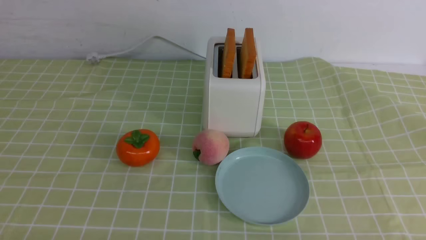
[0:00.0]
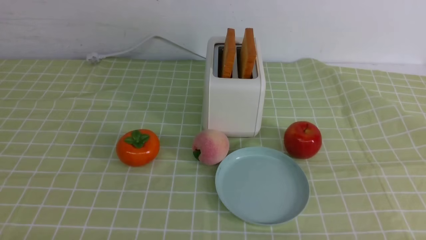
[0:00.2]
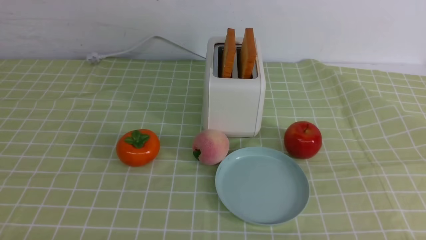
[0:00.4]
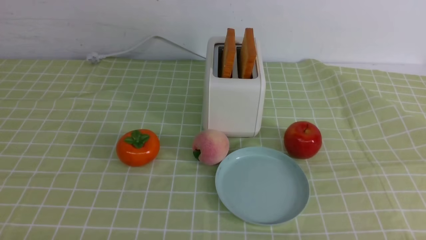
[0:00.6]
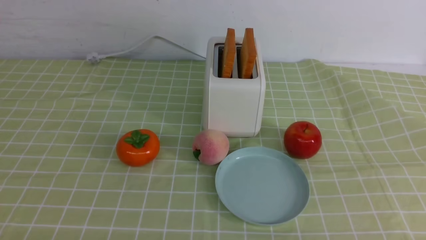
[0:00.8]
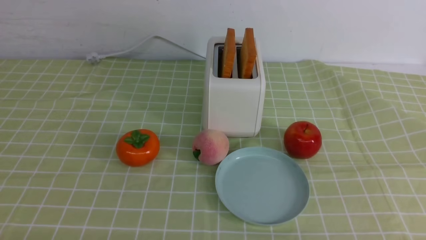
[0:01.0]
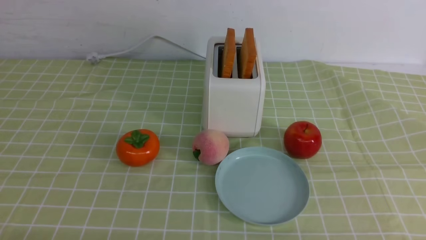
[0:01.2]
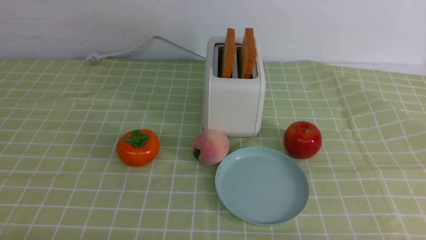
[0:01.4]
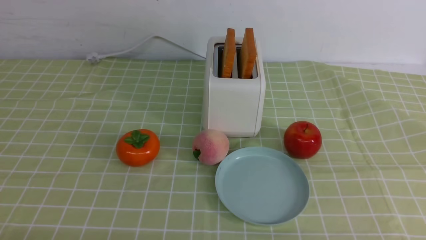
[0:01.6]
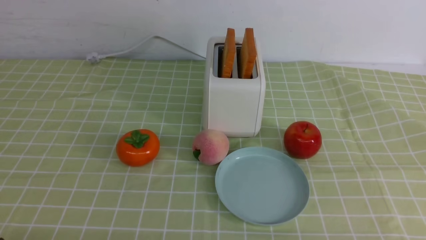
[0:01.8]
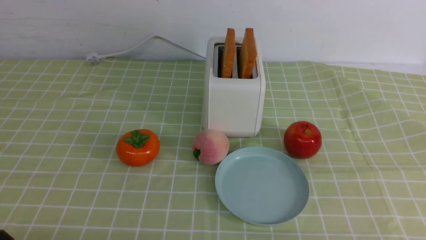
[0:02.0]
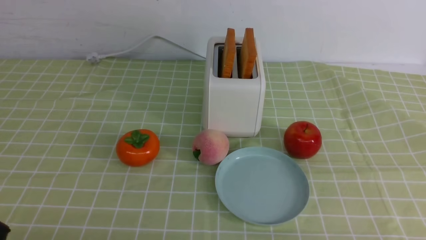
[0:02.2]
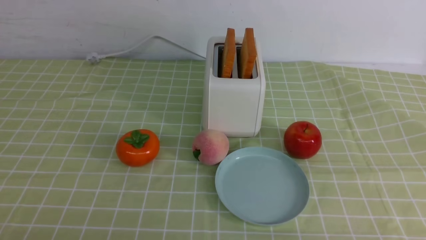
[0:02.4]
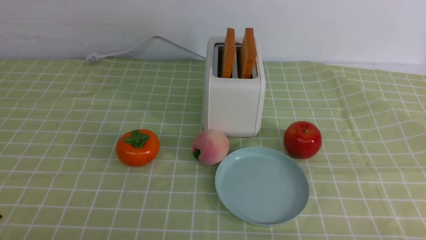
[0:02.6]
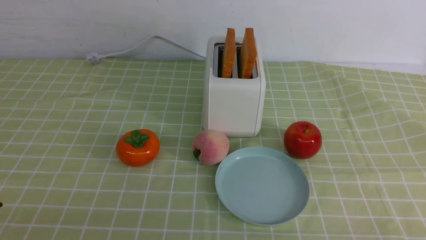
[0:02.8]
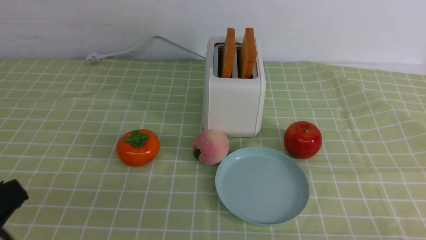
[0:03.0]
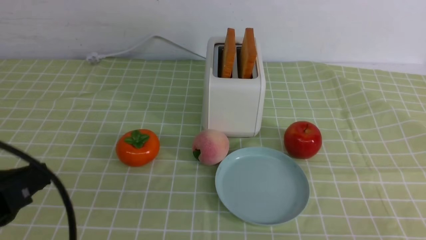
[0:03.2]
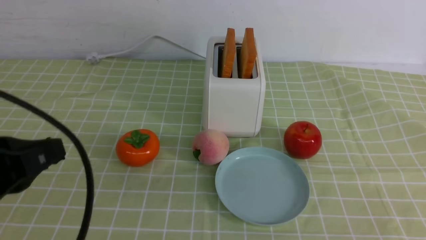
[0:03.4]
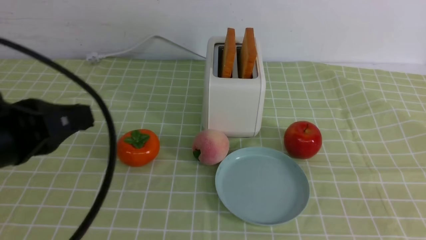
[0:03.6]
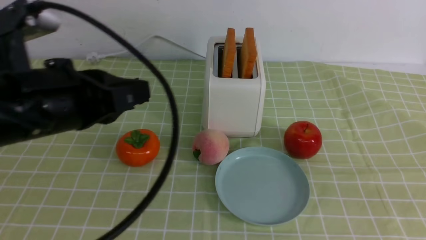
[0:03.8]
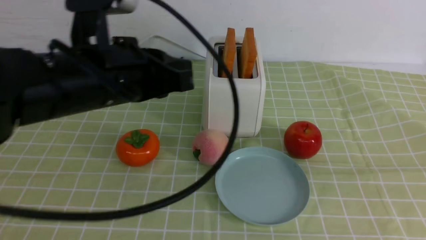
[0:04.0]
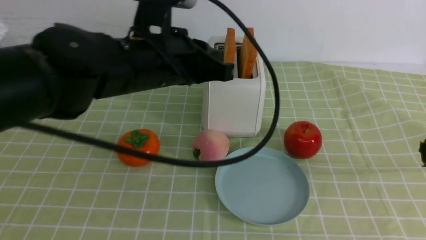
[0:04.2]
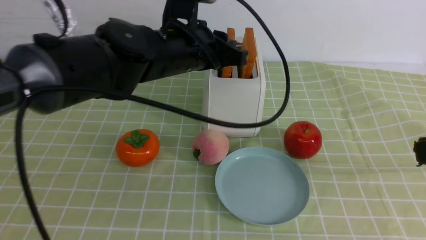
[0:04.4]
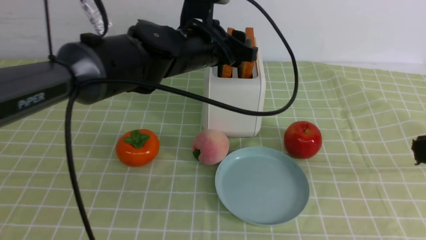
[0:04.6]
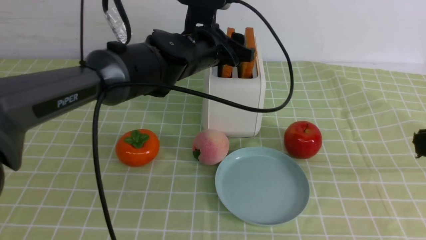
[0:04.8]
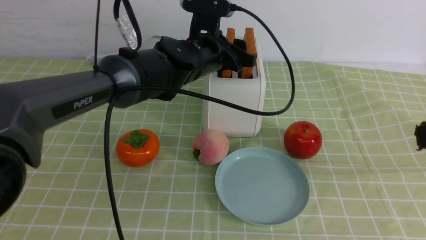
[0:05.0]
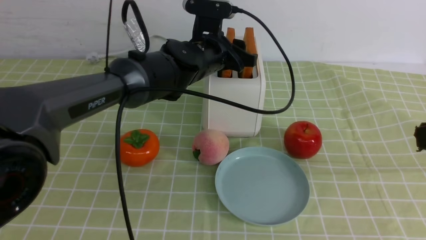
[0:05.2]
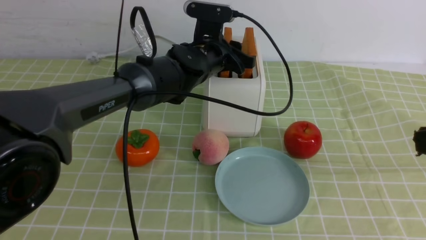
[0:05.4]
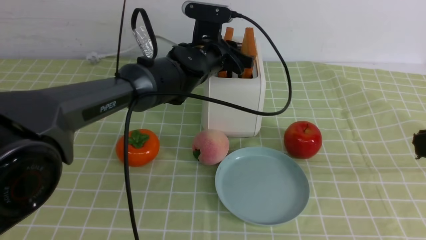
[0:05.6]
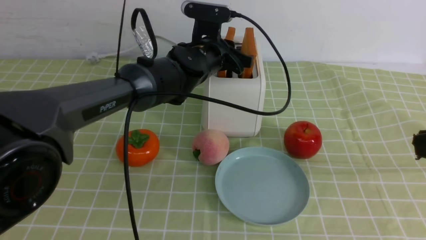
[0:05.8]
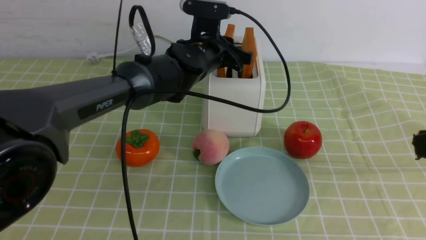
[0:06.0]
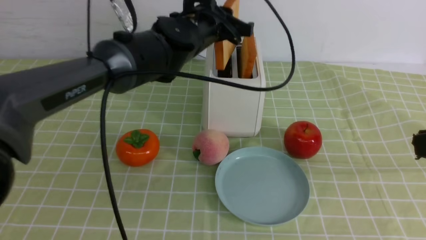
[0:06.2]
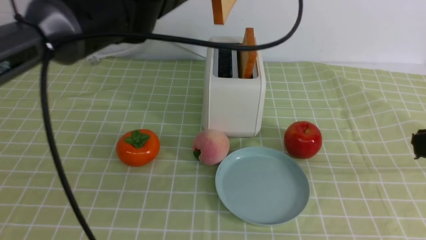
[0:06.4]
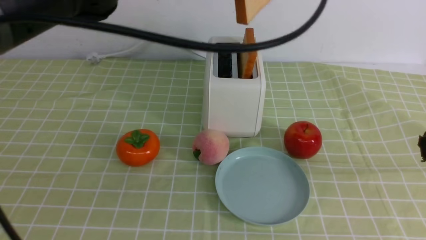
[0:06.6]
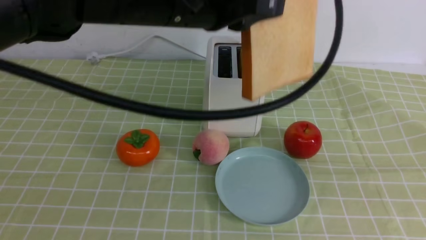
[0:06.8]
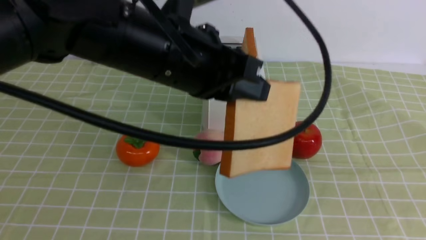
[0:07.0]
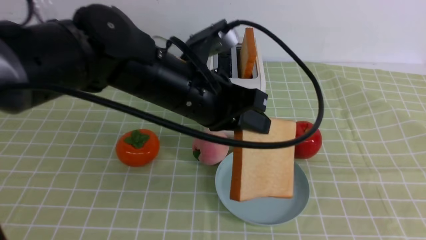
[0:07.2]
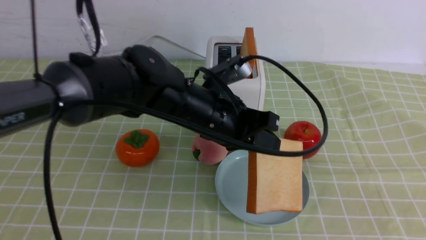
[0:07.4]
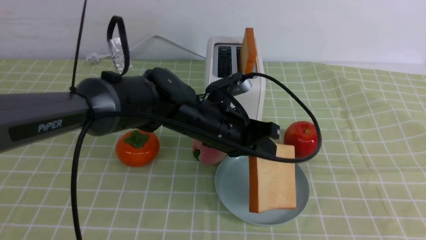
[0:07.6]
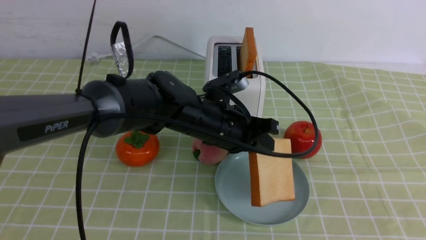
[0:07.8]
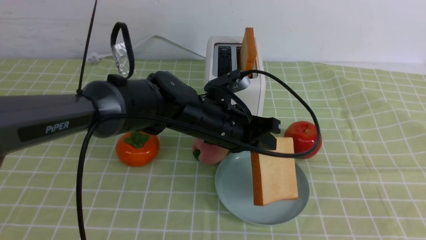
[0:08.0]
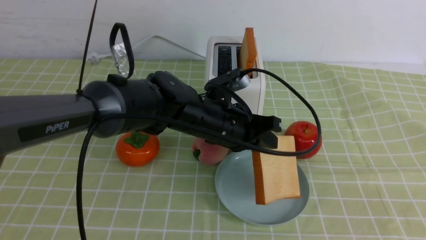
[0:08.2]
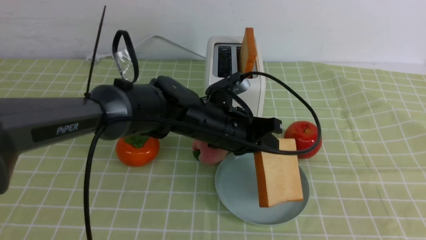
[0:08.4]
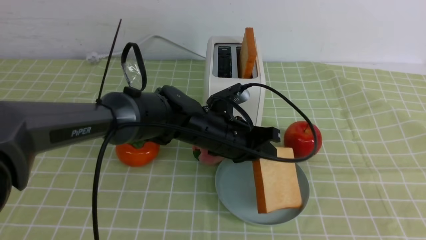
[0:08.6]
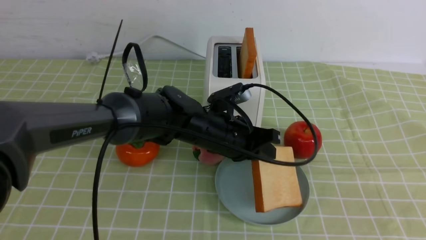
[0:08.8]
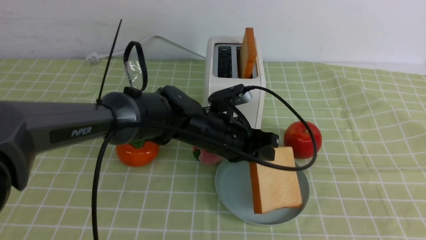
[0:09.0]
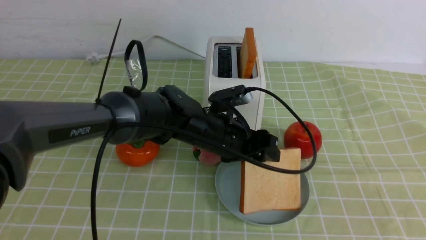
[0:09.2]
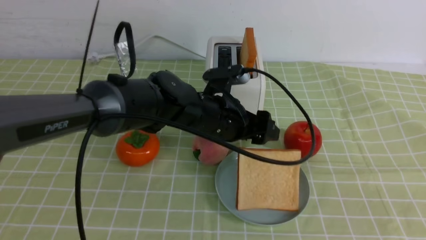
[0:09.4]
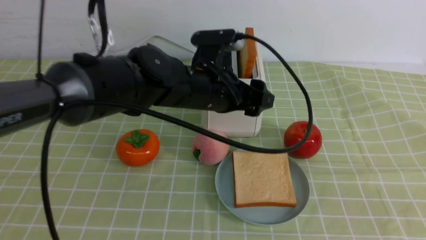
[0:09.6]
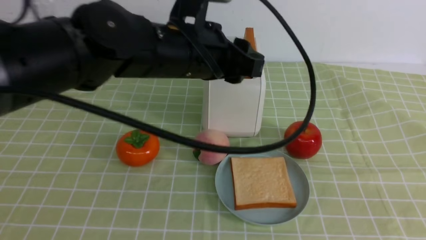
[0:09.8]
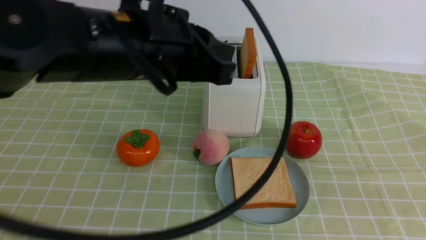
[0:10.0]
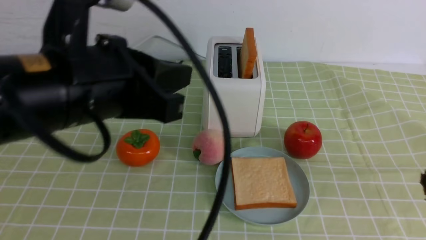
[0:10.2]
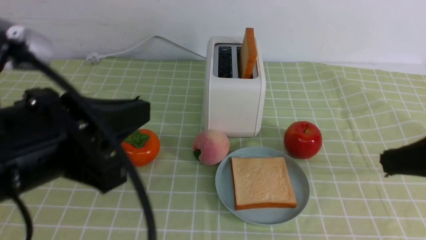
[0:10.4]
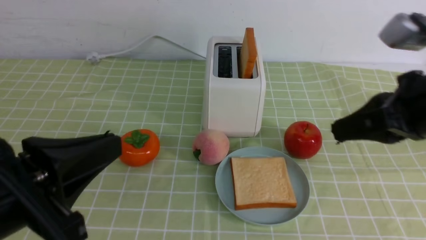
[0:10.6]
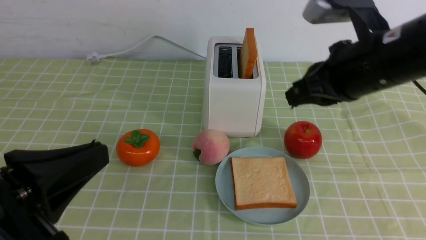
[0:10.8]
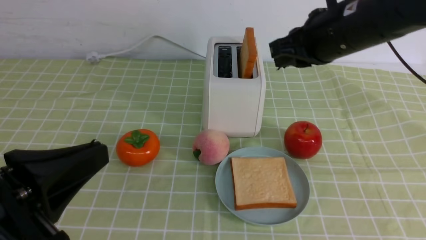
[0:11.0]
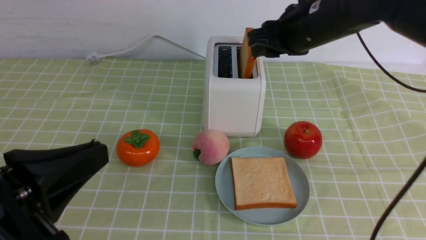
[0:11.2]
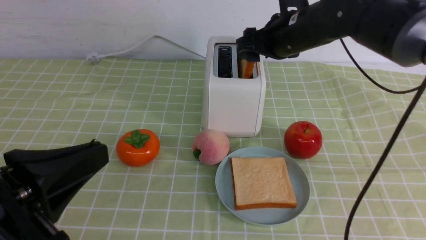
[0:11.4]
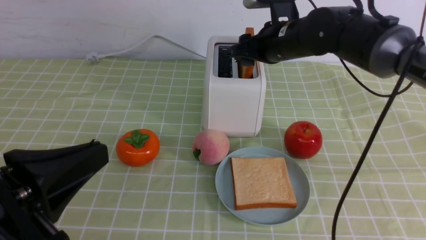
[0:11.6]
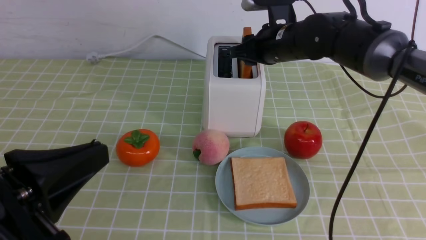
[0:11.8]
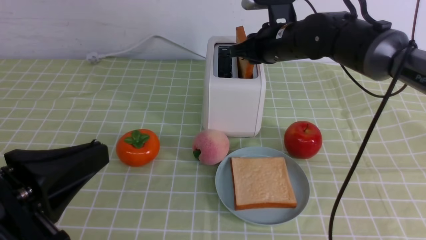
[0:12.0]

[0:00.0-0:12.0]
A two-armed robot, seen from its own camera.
Task of the whole recording: take toasted bread from bread machine on green coffee tablecloth place on plate.
Step, 0:00.0 to 0:06.2: use the left arm to take out a slice of bread.
Step, 0:06.6 to 0:09.6: use the left arm to put a slice of bread into the empty plate.
0:01.6 to 0:03.0: The left gripper heads upward, covering some 10 cm.
0:03.0 to 0:04.4: The right gripper travels upward and forward by roughly 20 cm, and closes its fingers; the left gripper shifts about 35 cm forward and to the right, and opens its fingers.
0:04.4 to 0:06.0: The left gripper heads forward and downward, covering some 15 cm, and opens, then closes once more.
0:06.0 to 0:07.6: The grippers both shift backward by approximately 10 cm. The left gripper travels upward and back again, about 15 cm each way.
0:07.6 to 0:09.0: The left gripper heads downward, covering roughly 5 cm.
0:09.0 to 0:10.4: The left gripper goes about 30 cm backward, upward and to the left, and closes up, while the right gripper goes about 10 cm forward.
0:10.4 to 0:12.0: The right gripper moves forward and to the left, some 35 cm, and opens. The left gripper heads backward, covering approximately 5 cm.

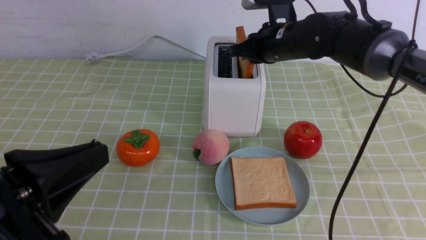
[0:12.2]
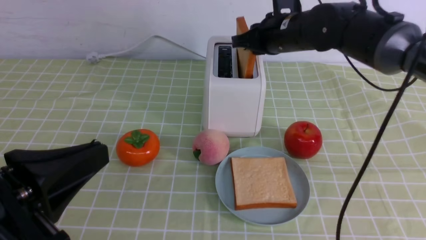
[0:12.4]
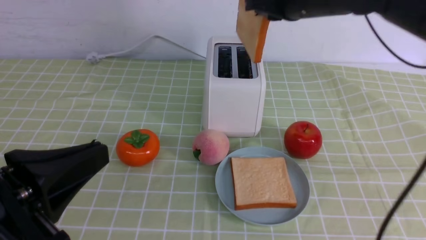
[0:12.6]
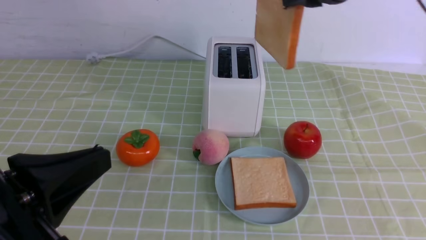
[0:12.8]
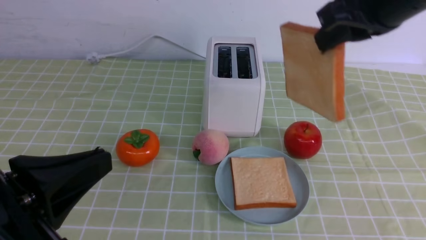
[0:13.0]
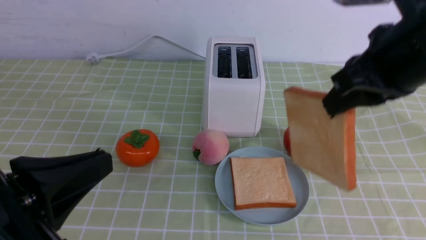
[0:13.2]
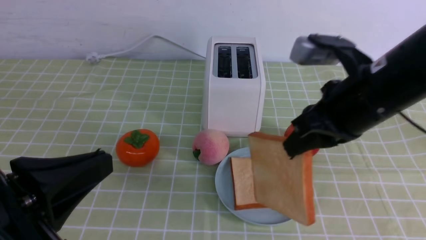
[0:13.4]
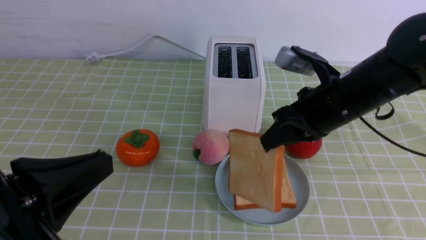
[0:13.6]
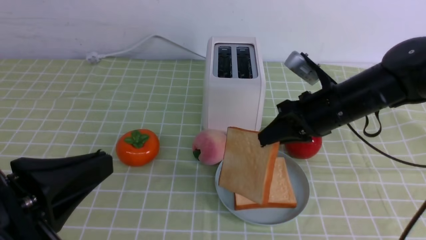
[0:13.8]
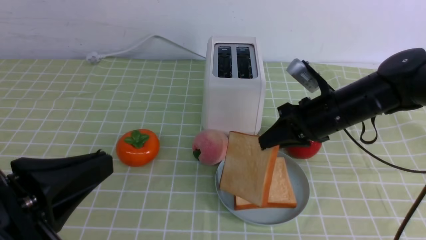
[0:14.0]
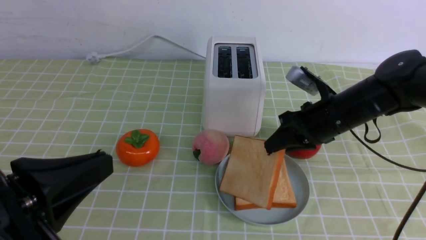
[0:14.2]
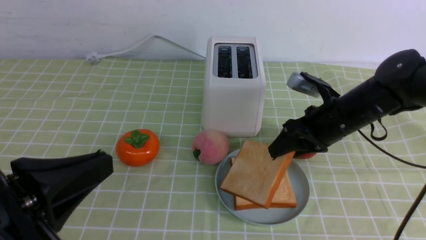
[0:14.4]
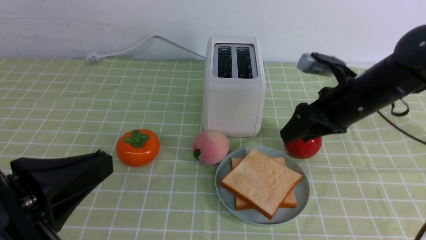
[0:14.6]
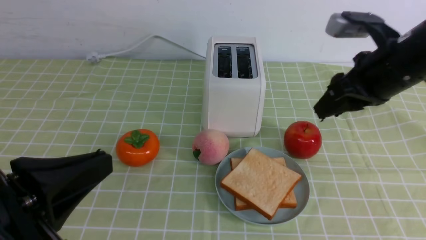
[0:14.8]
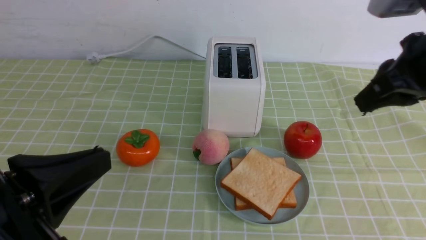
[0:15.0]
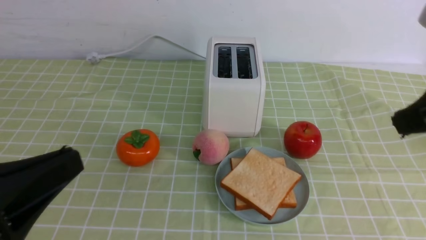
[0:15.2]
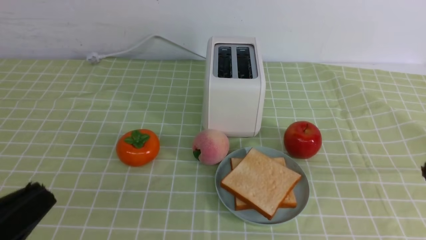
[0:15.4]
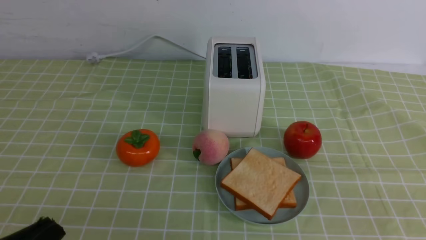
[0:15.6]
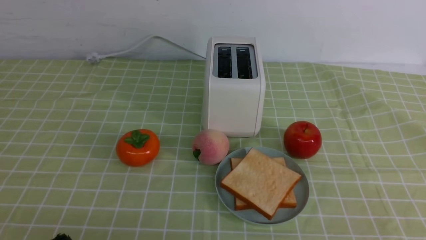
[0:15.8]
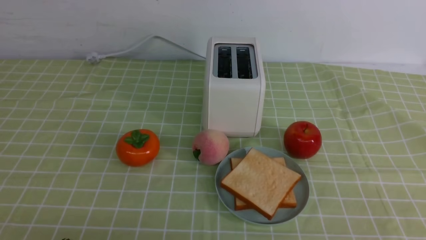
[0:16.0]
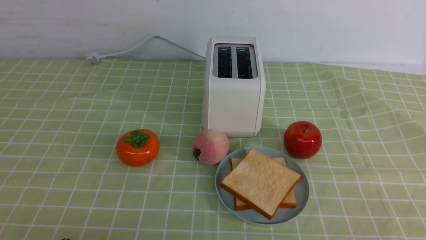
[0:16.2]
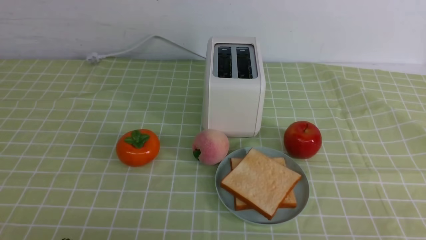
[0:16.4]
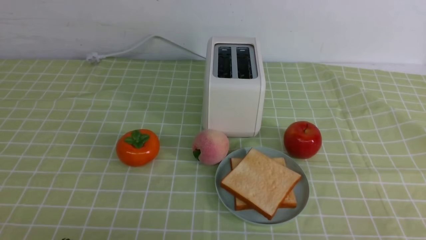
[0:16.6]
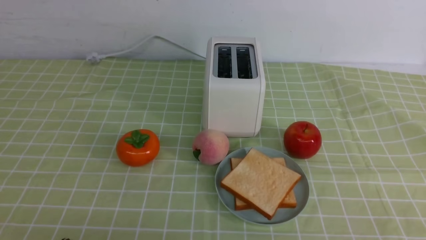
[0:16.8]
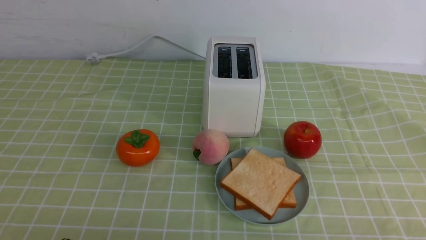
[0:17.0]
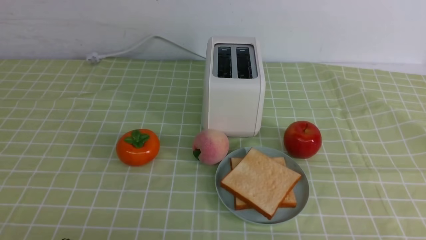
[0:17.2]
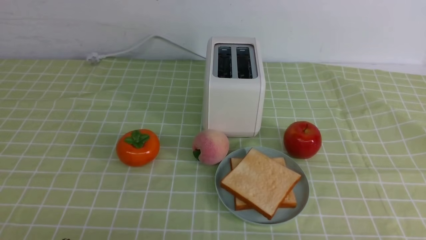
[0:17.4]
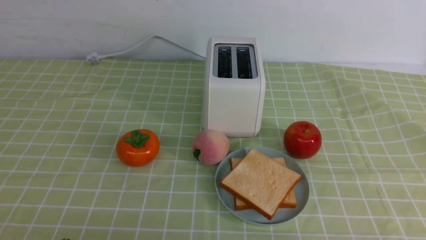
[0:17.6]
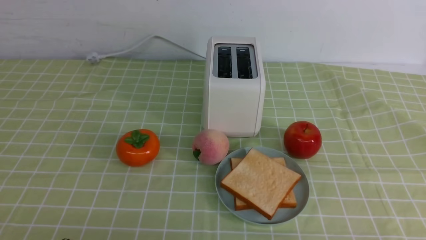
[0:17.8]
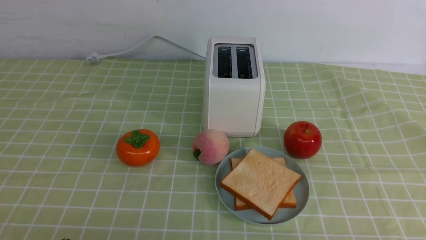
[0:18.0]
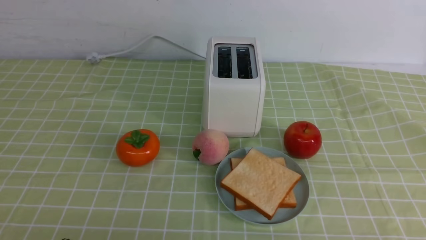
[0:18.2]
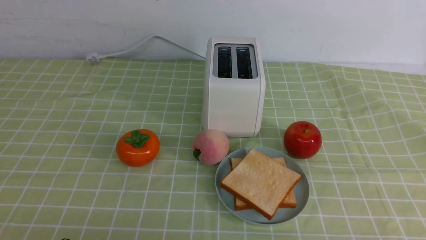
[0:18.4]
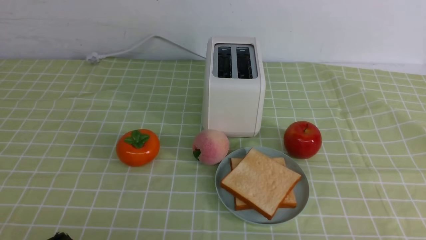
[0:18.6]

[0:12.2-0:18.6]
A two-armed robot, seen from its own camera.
Task of the whole recording: take toasted bread from bread machine on green coffee tablecloth place on plate.
Step, 0:12.8 to 0:15.0: use the right arm to put a slice of bread into the plate.
0:12.2 to 0:13.8: The right gripper heads backward and to the right, covering some 15 cm.
0:13.8 to 0:15.4: The right gripper travels backward, upward and to the right by roughly 25 cm, and opens, then closes once more.
0:15.4 to 0:17.0: The left gripper travels downward by about 10 cm.
